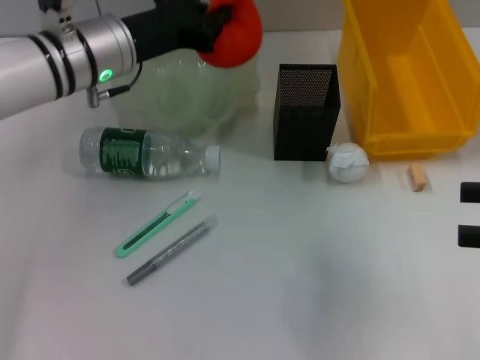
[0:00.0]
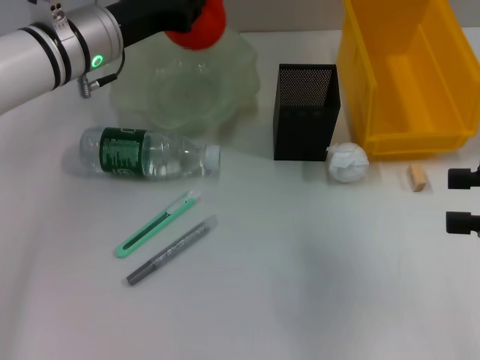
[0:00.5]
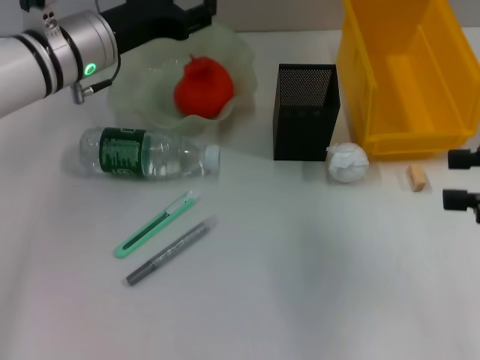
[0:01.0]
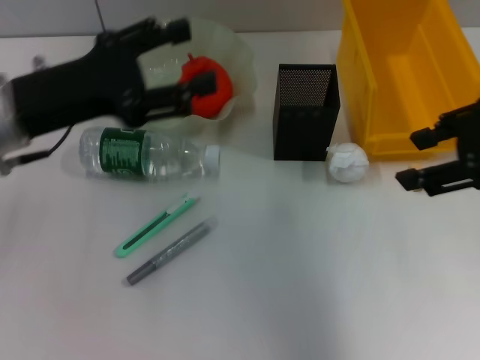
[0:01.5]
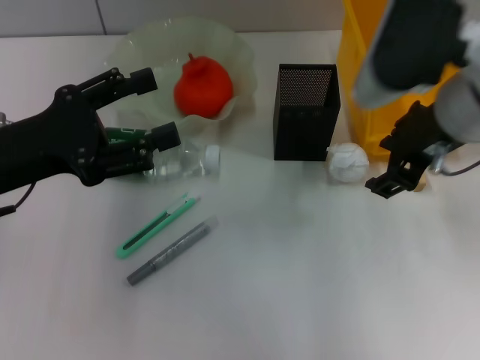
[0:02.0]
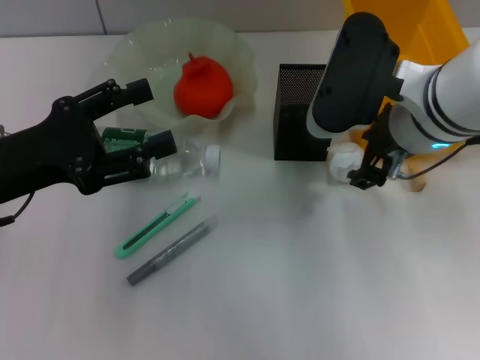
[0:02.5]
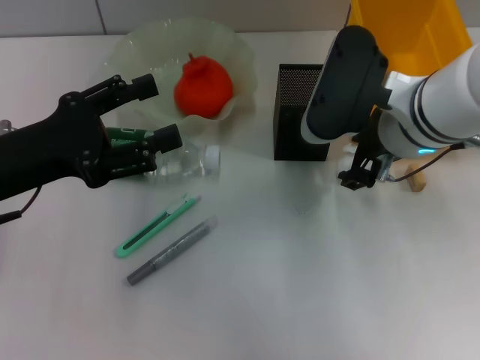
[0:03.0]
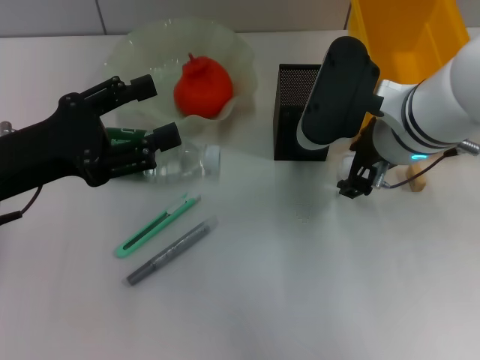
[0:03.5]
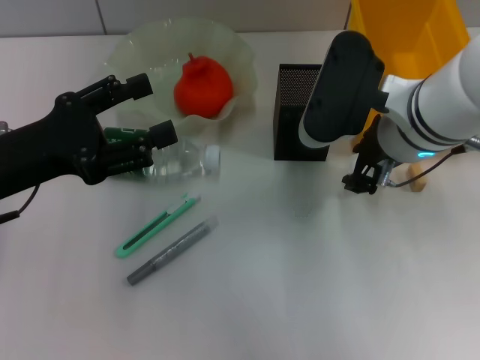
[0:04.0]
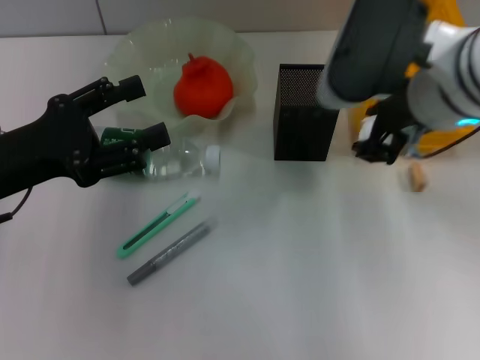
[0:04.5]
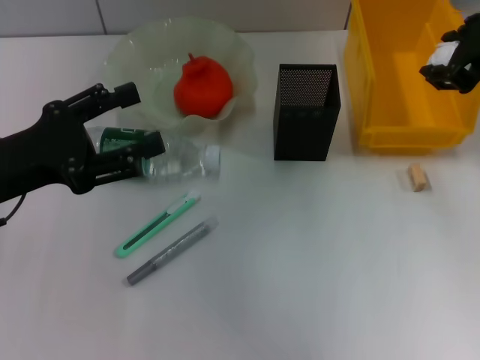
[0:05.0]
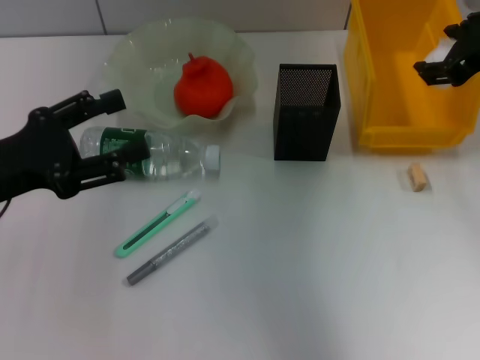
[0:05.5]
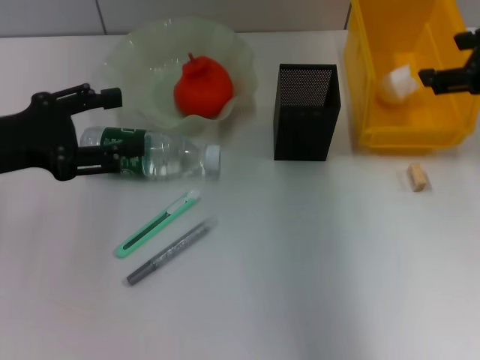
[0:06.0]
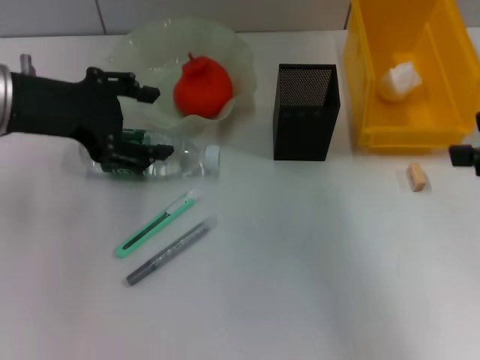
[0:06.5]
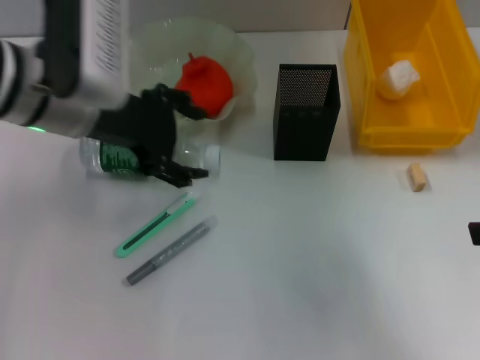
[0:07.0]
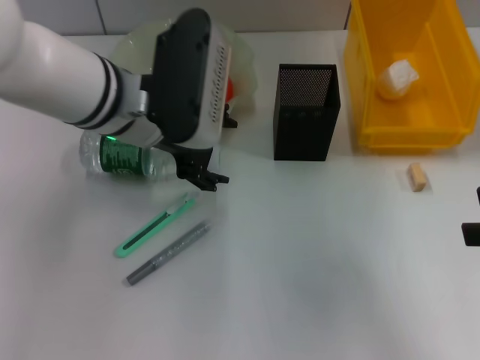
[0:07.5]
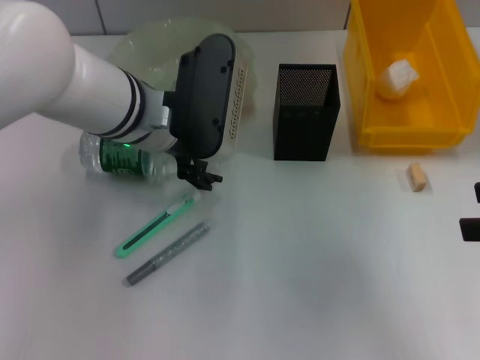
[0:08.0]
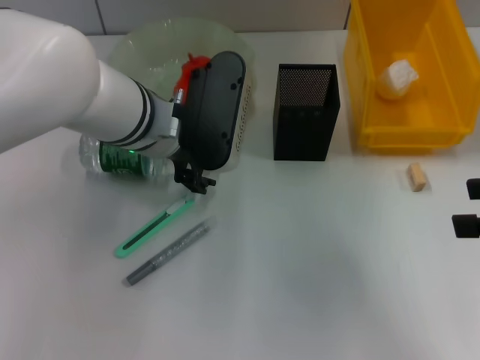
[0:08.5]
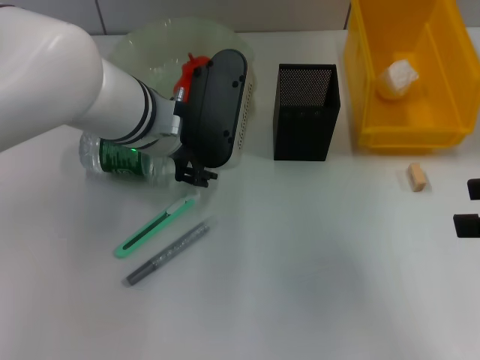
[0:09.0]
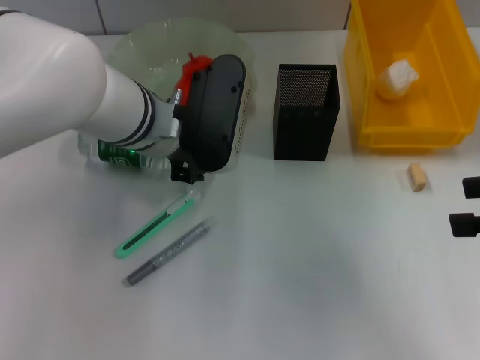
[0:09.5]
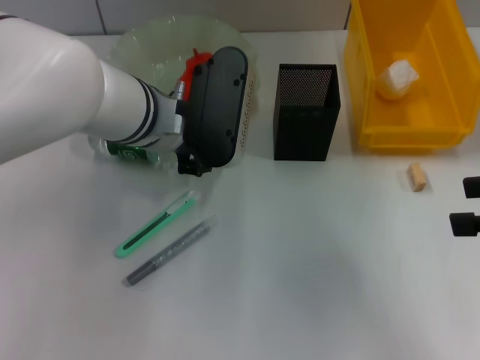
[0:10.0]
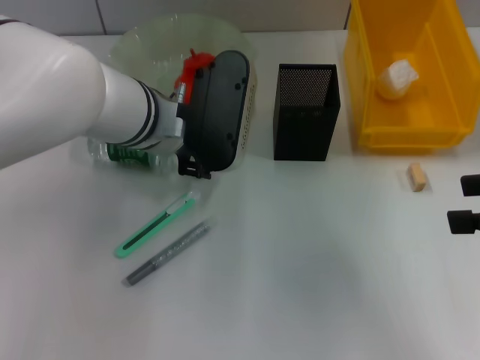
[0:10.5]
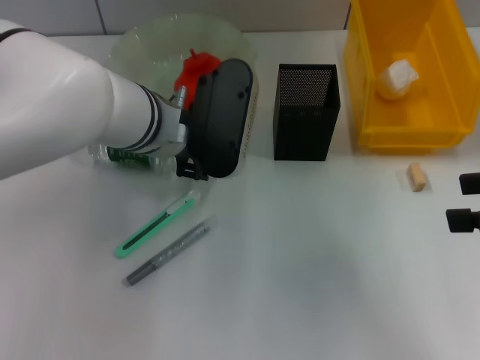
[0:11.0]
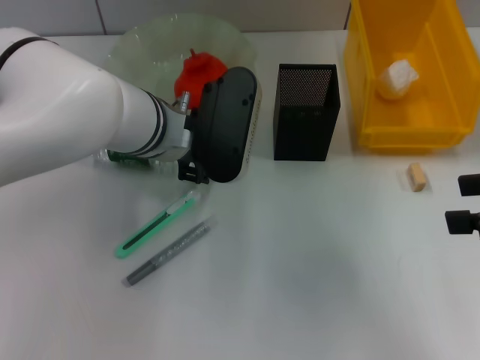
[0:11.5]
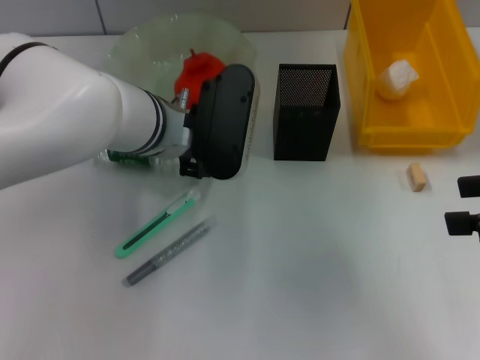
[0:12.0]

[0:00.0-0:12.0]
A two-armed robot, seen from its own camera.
Step, 0:00.0 to 0:01.0: Place the orange into the fruit bowl with the left hand.
Step, 0:01.5 to 0:03.5: Grab the paper ball with the right hand.
Step, 0:04.0 to 0:07.0: Place the paper ball into the trash can with the right hand.
0:00.0 to 0:02.0: The right gripper is displaced to the left and forward by about 20 cm, while the left gripper is displaced backward and to the left by about 15 cm, and opens its fingers.
0:02.0 to 0:04.0: The right gripper goes some 5 cm downward.
0:04.0 to 0:06.0: The right gripper travels to the right and upward by about 15 cm, and opens.
0:06.0 to 0:08.0: The right gripper moves backward and to the right, some 15 cm. The left gripper heads to the right, covering some 20 cm.
0:08.0 to 0:10.0: The left gripper closes its fingers.
0:10.0 to 0:12.0: The grippers move only a little.

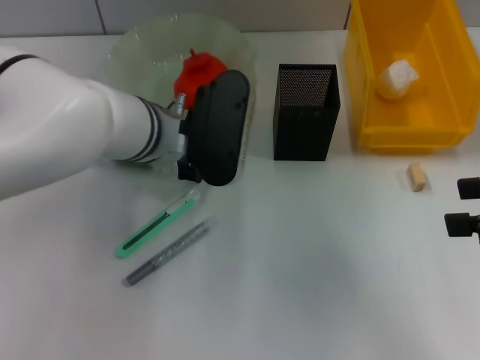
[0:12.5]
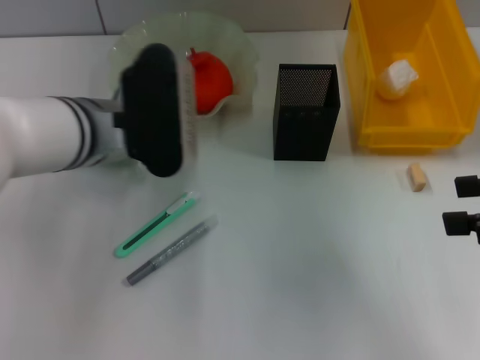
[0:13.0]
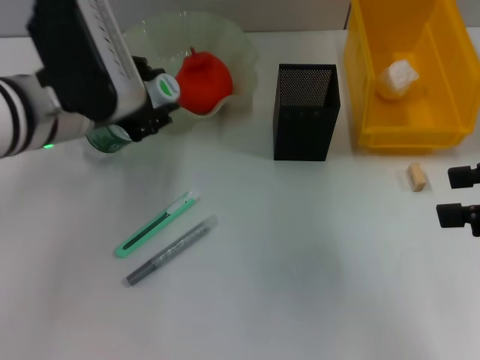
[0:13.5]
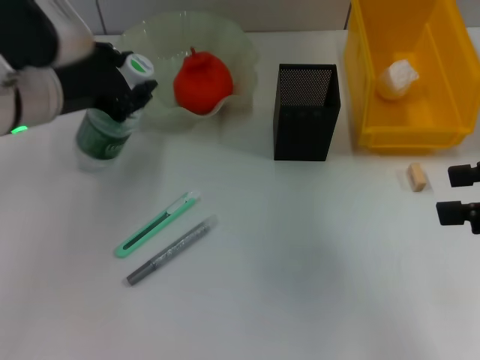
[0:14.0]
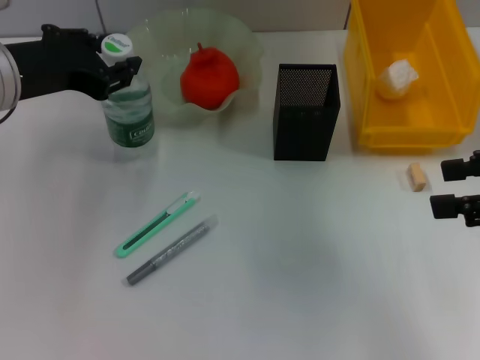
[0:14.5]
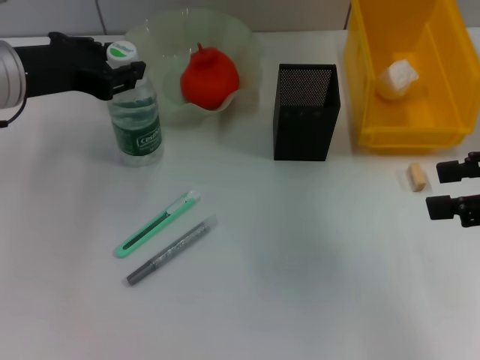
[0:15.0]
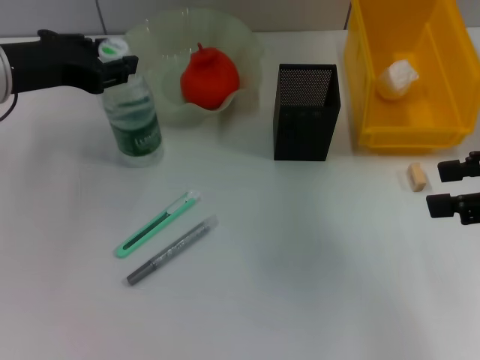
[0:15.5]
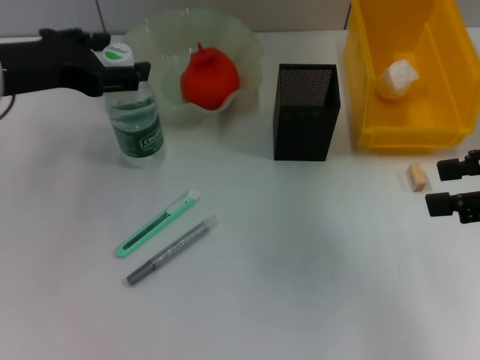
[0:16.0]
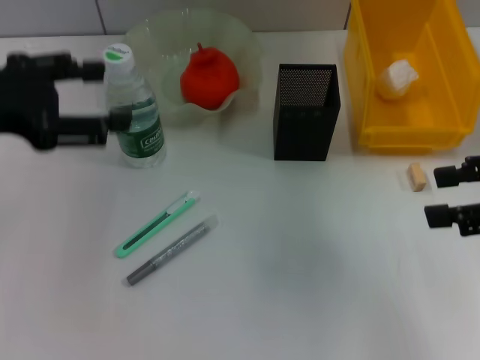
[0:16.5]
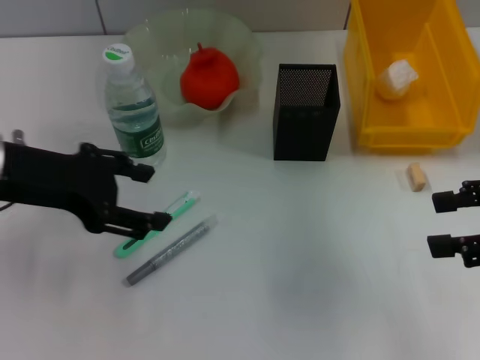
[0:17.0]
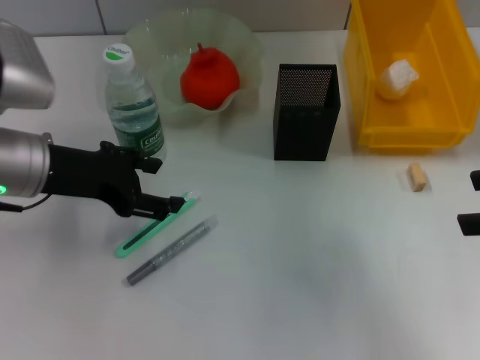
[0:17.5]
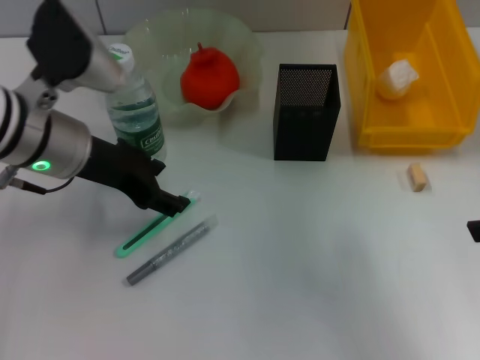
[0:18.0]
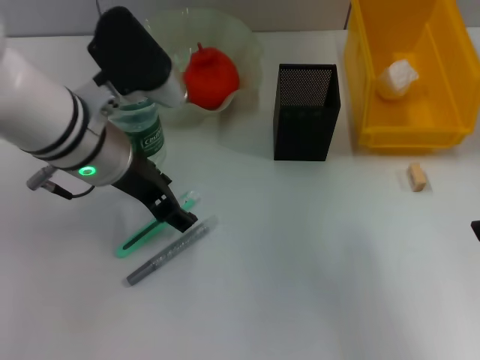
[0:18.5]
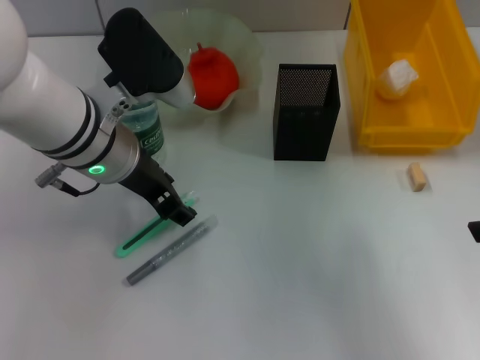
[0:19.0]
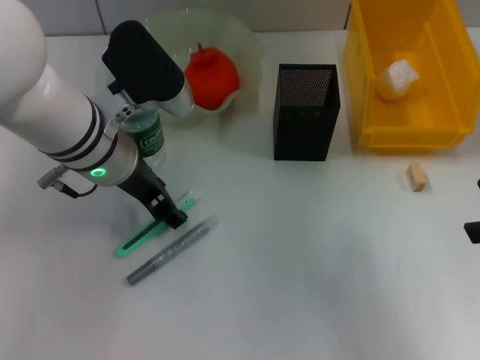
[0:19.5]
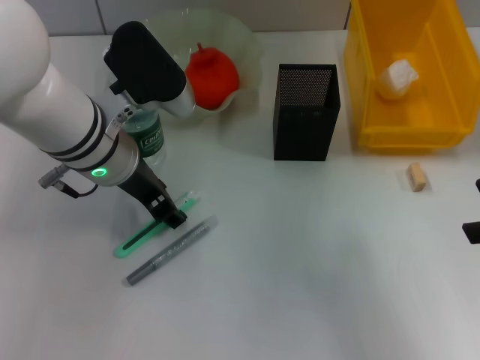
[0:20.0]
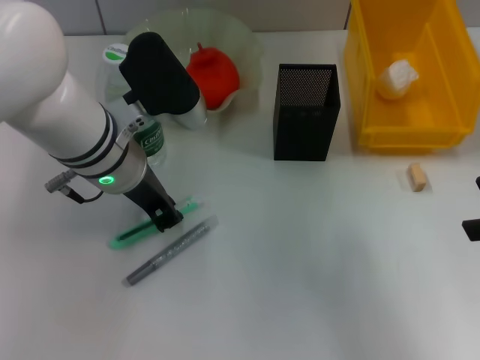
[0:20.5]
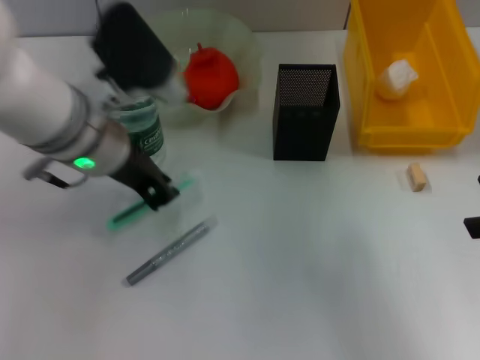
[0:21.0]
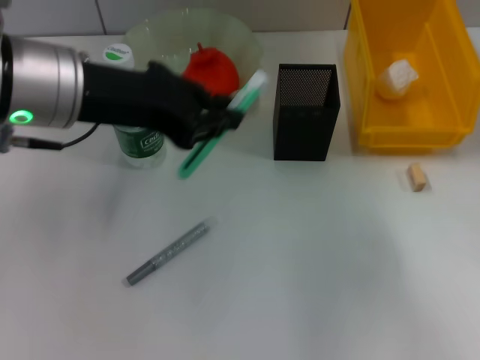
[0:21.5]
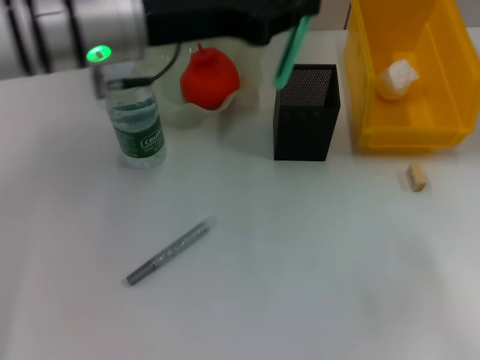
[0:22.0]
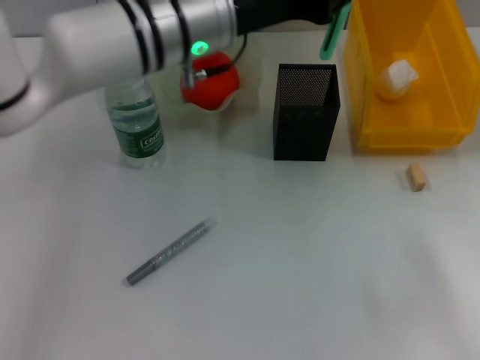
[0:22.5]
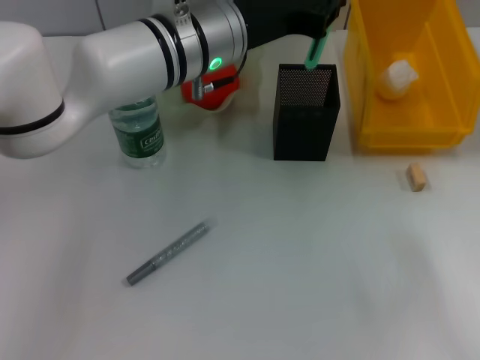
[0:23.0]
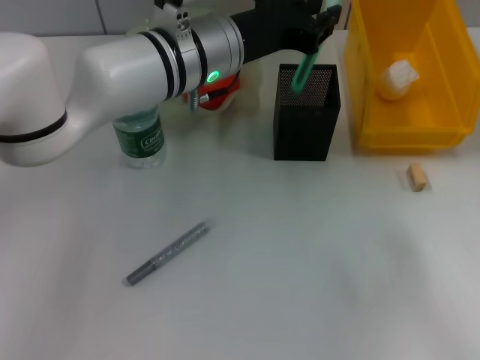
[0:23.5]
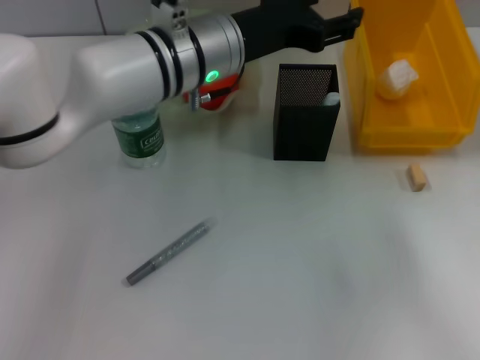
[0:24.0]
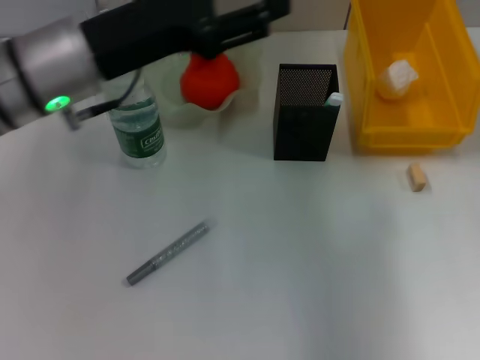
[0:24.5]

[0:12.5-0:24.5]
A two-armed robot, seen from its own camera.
Step, 0:12.5 to 0:15.5: Place the water bottle on the table with the left hand.
Step, 0:16.0 to 0:20.5: Grab the blue utility knife with the left hand.
Step, 0:21.0 to 0:24.0: Place the blue utility knife into the pen holder with the left hand.
0:12.5 to 0:14.5: The left gripper goes about 15 cm to the left and upward.
0:14.5 to 0:16.5: The left gripper is displaced to the left by some 5 cm, and opens up.
0:16.5 to 0:18.5: The left gripper moves to the right and downward, about 15 cm.
0:18.5 to 0:20.5: The left gripper closes.
0:20.5 to 0:22.5: The right gripper goes about 10 cm to the right and backward, while the left gripper heads to the right and upward, covering approximately 10 cm.
0:22.5 to 0:24.5: The right gripper goes roughly 10 cm forward and to the left; the left gripper goes approximately 10 cm to the left and backward, and opens its fingers.

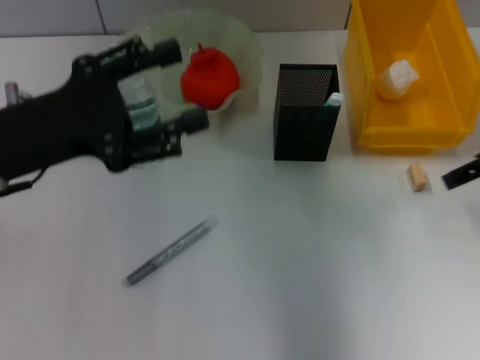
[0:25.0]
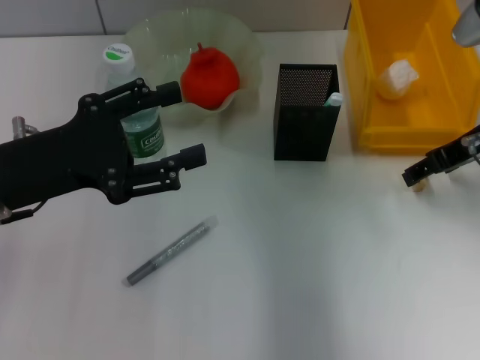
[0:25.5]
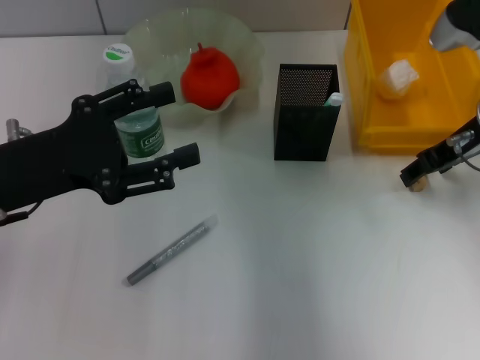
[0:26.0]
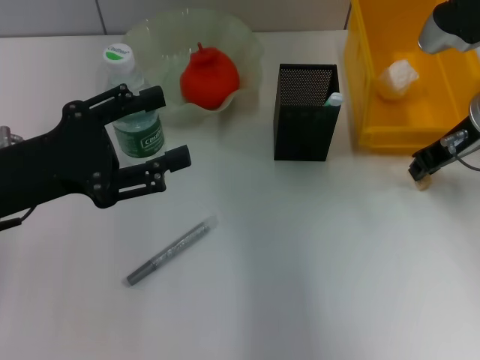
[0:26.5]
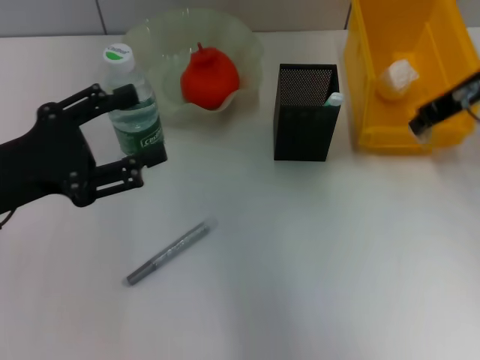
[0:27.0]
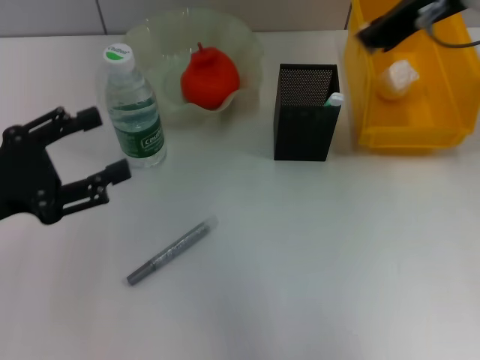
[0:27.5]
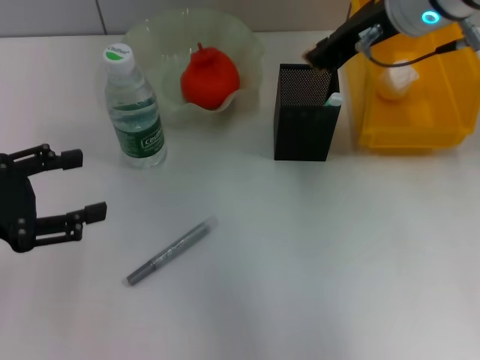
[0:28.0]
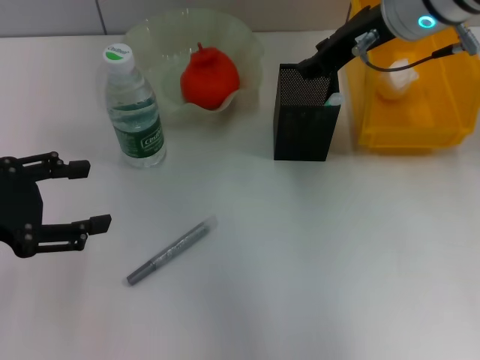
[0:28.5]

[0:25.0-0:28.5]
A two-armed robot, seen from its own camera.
Step, 0:27.0 to 0:28.0: Put the eraser into the pen holder with the right hand.
0:25.0 to 0:27.0: The right gripper heads to the left, covering approximately 5 cm, and closes its fingers.
0:27.0 to 0:28.5: The right gripper is displaced to the left by some 10 cm.
